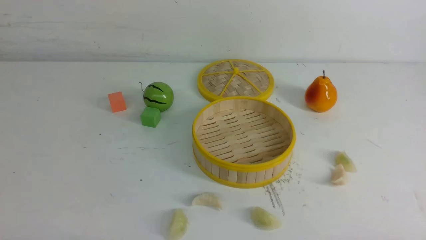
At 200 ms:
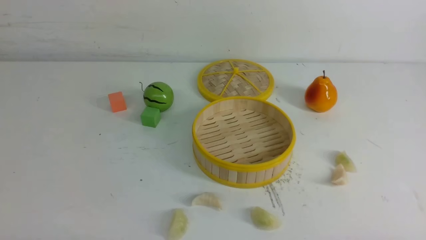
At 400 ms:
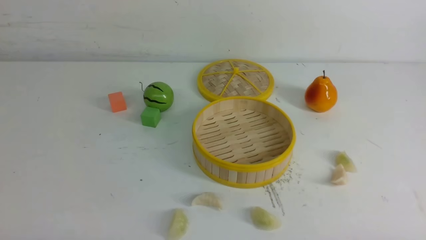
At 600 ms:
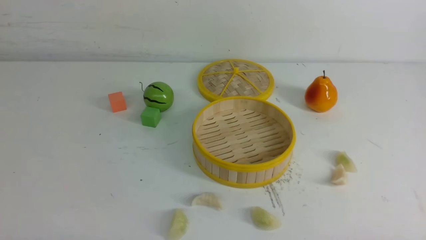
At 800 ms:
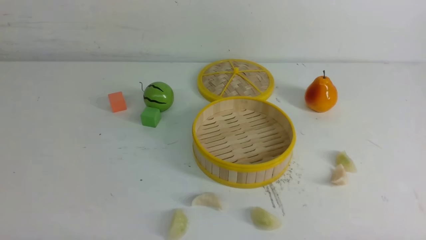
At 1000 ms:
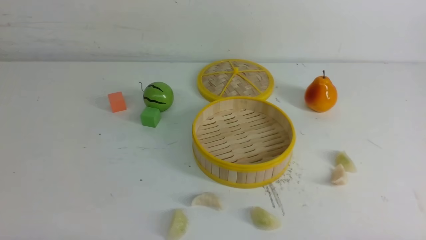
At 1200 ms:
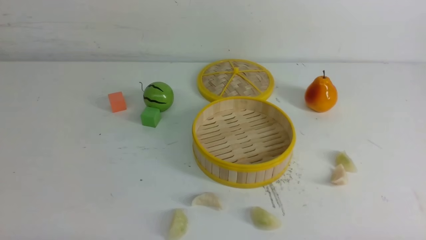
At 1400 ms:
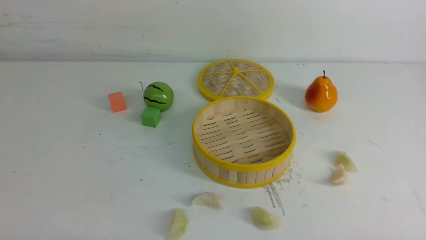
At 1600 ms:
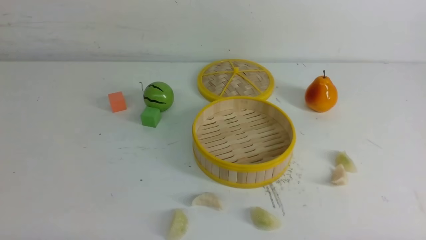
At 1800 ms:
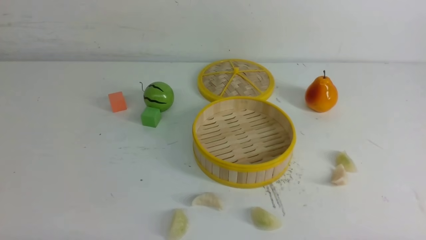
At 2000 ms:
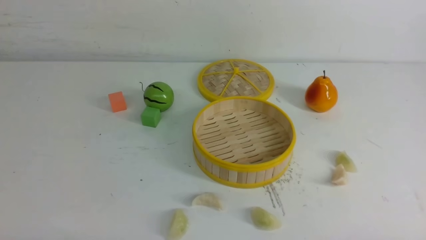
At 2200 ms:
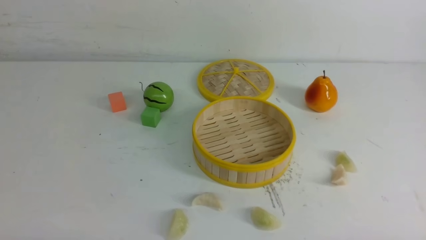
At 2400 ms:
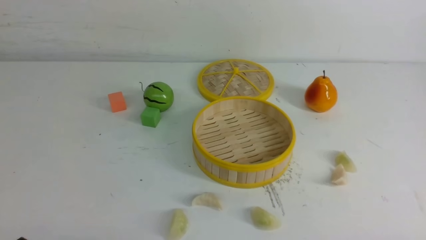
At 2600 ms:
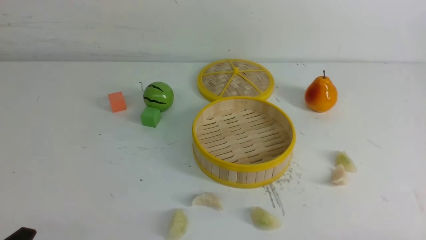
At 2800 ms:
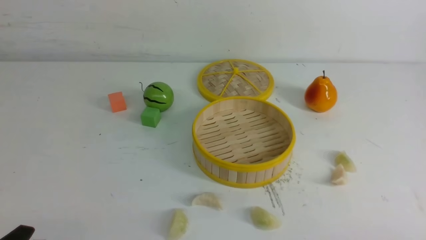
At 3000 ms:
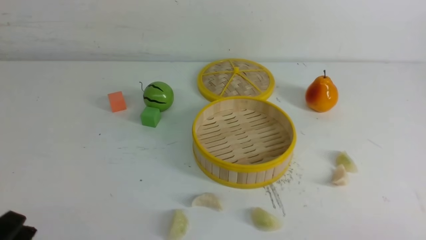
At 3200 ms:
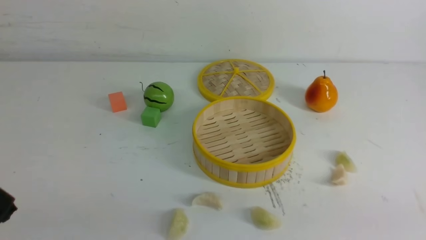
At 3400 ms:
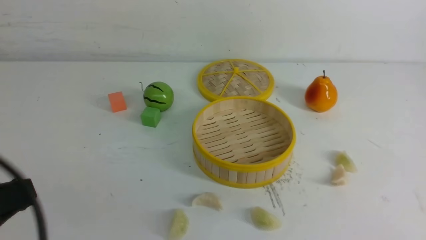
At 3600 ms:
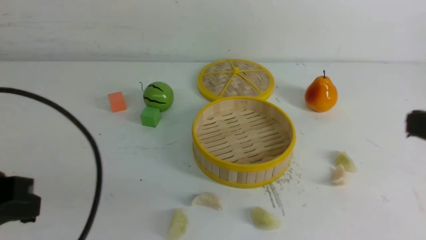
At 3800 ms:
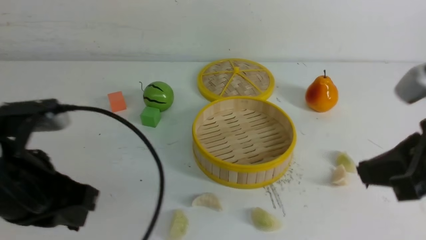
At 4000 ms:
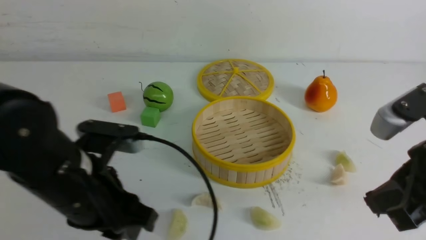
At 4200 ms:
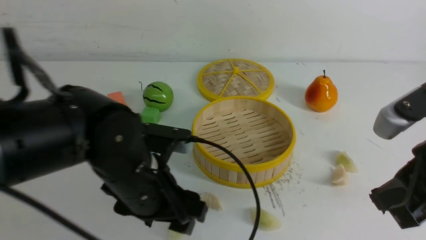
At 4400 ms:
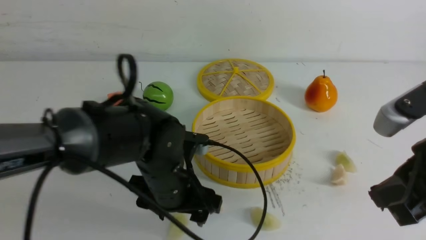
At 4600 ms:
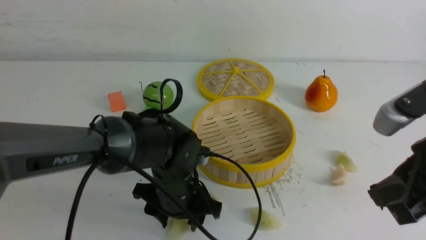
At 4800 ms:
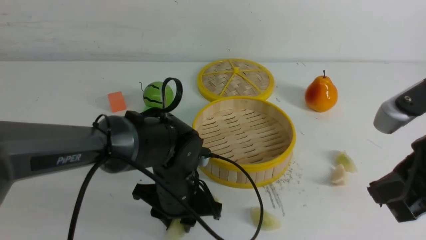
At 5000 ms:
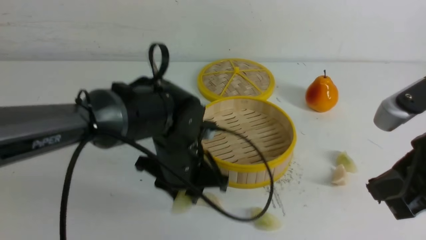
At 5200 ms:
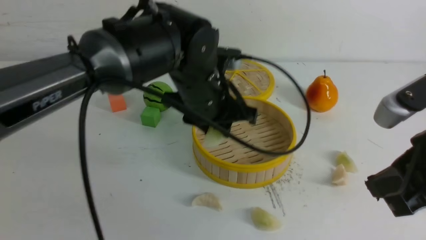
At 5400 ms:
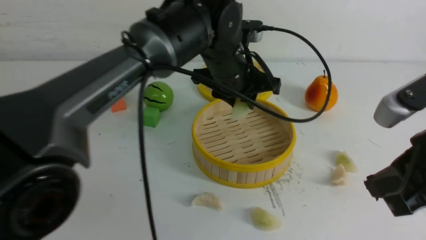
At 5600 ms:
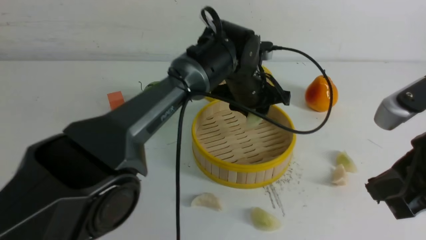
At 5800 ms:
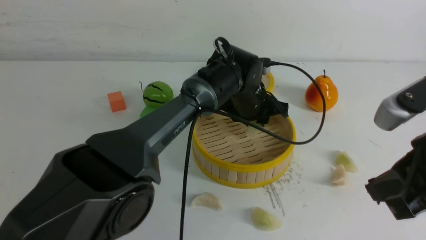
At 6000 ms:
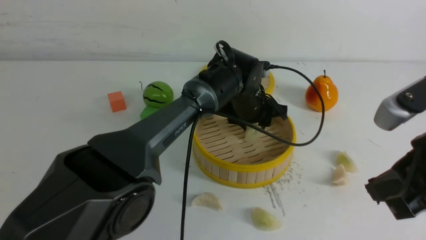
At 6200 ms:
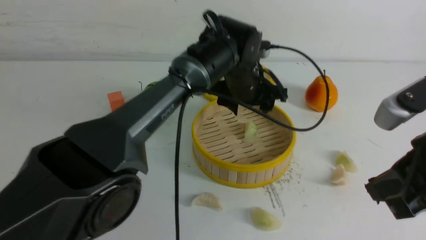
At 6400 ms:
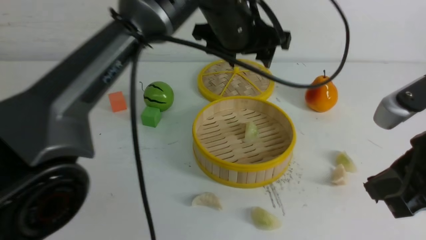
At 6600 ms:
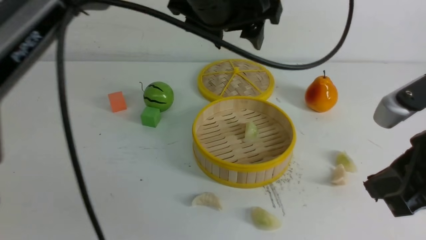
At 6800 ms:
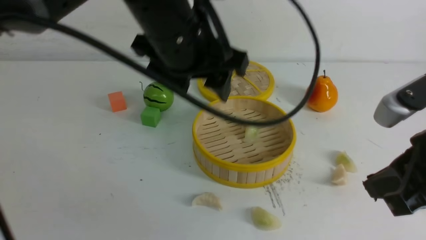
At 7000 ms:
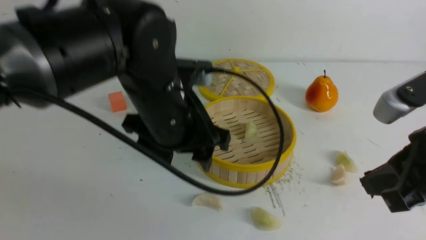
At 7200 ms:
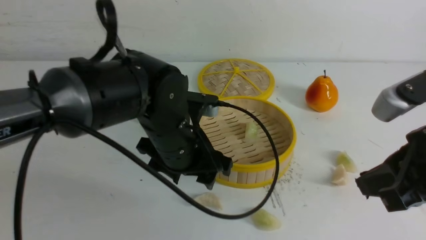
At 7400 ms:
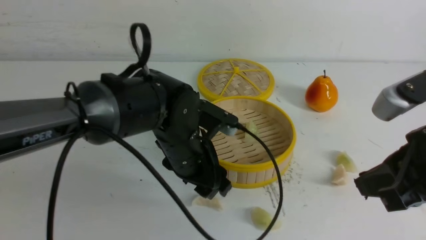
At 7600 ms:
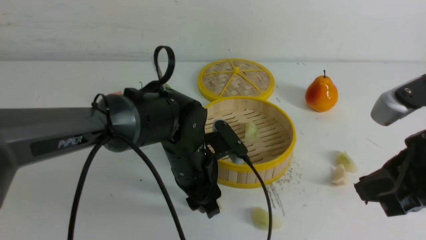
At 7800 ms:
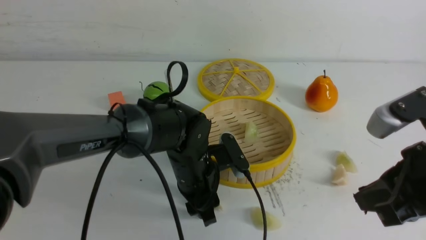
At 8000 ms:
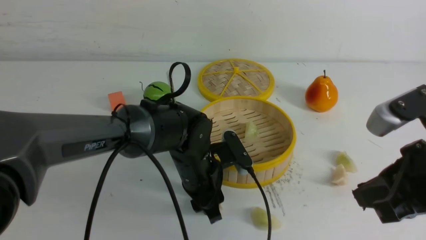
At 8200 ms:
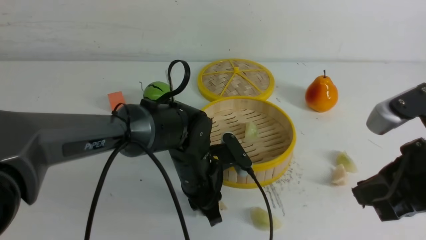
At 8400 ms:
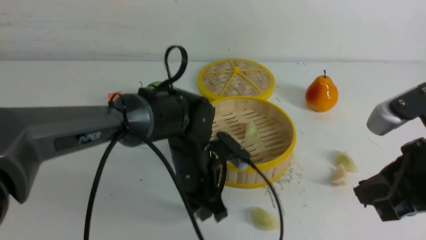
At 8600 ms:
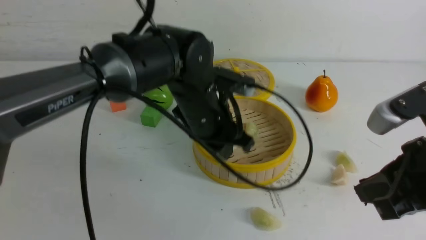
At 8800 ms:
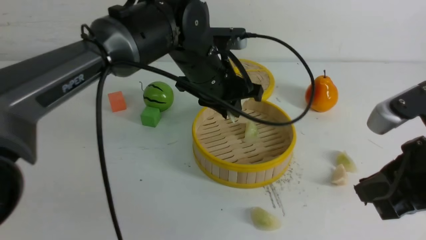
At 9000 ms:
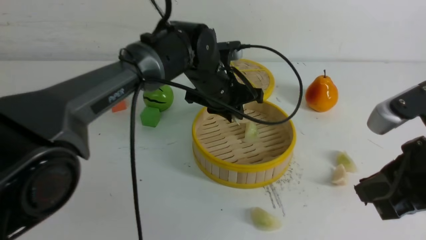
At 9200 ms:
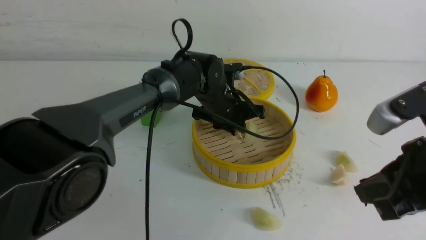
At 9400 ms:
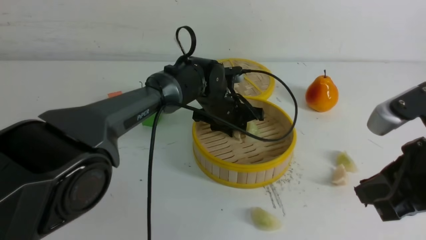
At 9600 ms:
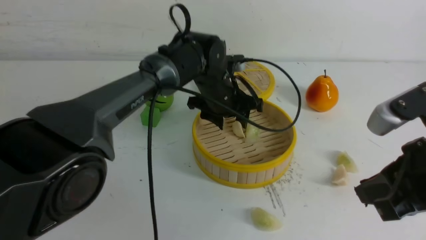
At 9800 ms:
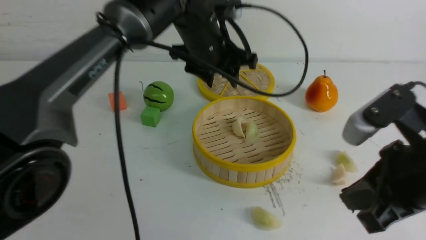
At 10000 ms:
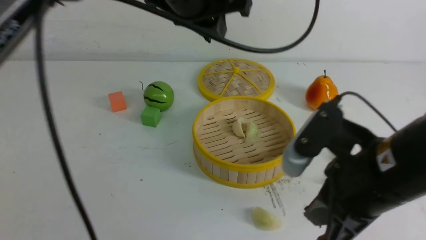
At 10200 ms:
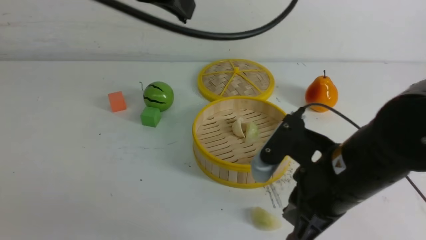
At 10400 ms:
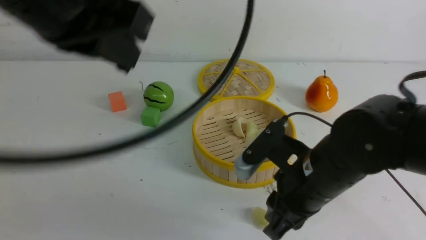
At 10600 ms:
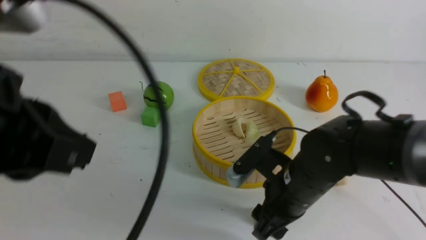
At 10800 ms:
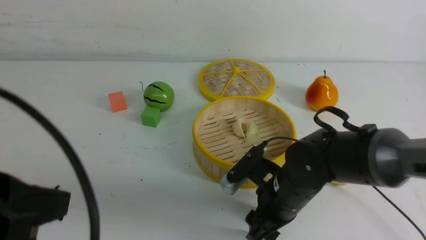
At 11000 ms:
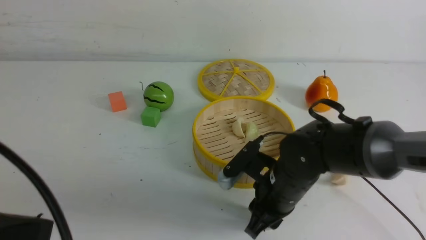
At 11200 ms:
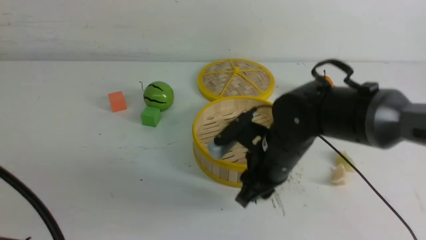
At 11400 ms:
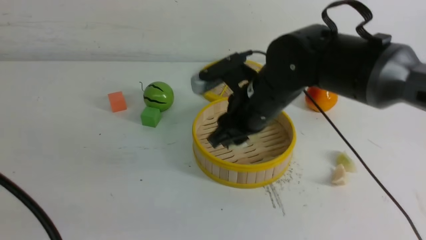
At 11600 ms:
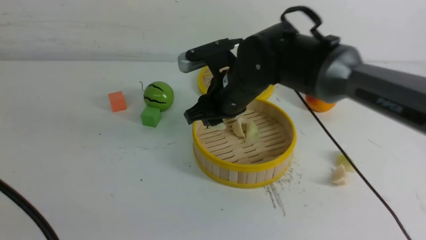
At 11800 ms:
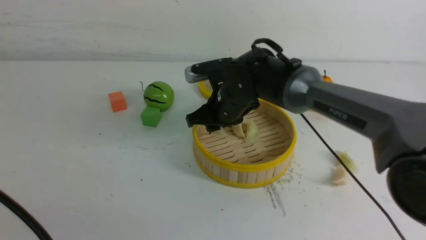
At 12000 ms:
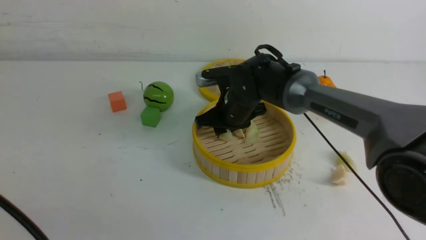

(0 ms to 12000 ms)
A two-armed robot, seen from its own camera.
Task of the whole recording: put the dumplings into the steamer on the white table.
Step, 0 ms - 4800 ms: use the left arm to grab a dumpling.
Step, 5000 ms - 6200 ms: use the left arm to put the dumpling into the steamer.
Step, 6400 ms - 8200 ms: use the left arm to grab a dumpling.
Step, 8400 ms - 9400 ms: use the left arm to put the dumpling into the steamer.
Step, 9800 ms - 11000 ms: use the right arm to grab a dumpling.
1600 ms - 3000 ms: The left gripper shifts approximately 5 cm upward.
3000 ms - 4400 ms: The right gripper heads forward, upward and to the left, covering approximately 20 cm, and closes up. Meanwhile the left gripper travels forward and to the right by approximately 30 cm, and opens its fingers.
4400 ms - 6000 ms: The left gripper is displaced forward and to the right by some 20 cm.
6000 ms - 7600 ms: The left gripper shifts roughly 15 cm backward and to the left, and moves approximately 20 cm upward and comes back.
7600 ms - 9000 ms: The left gripper heads forward and upward, covering roughly 10 cm, and closes.
9000 ms - 10400 ms: The right gripper moves to the left, downward and forward, approximately 15 cm. The left gripper moves backward, upward and to the left, approximately 35 cm, and opens, then closes once more.
10400 ms - 12000 ms: The right gripper goes approximately 20 cm forward. The left gripper travels backward, downward and to the left by about 20 cm.

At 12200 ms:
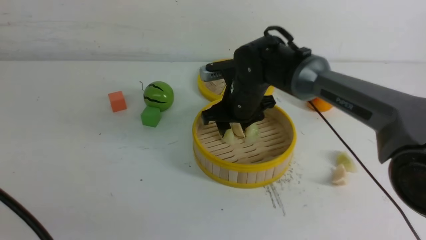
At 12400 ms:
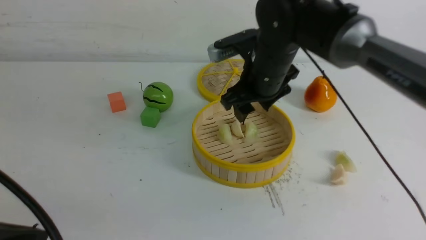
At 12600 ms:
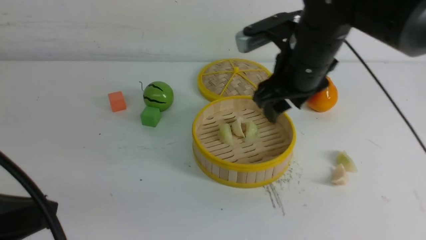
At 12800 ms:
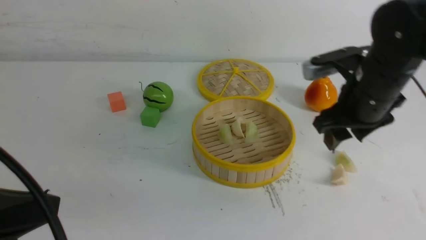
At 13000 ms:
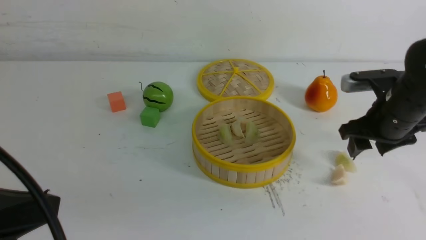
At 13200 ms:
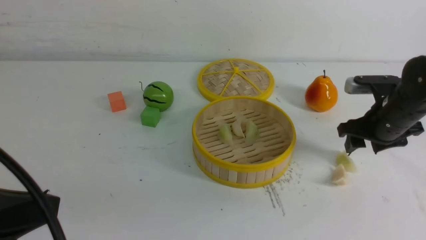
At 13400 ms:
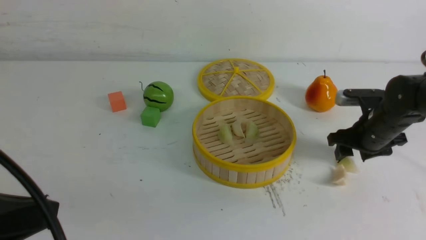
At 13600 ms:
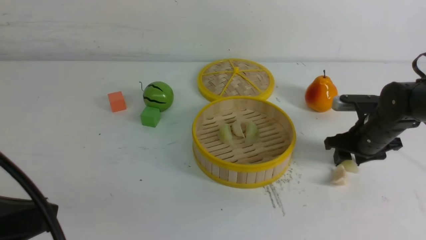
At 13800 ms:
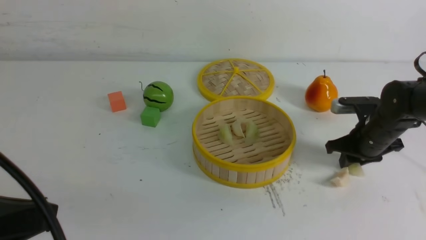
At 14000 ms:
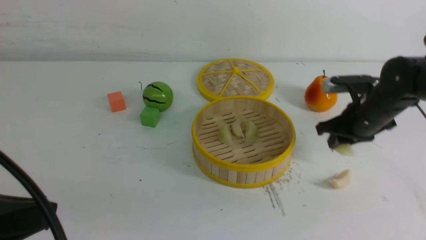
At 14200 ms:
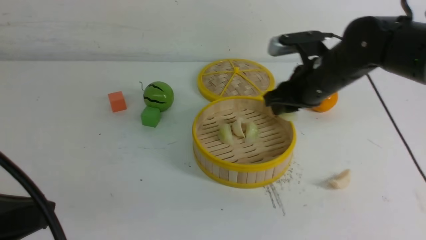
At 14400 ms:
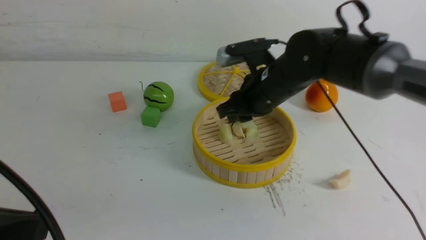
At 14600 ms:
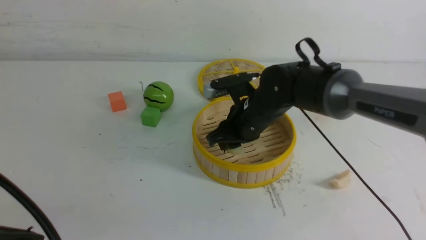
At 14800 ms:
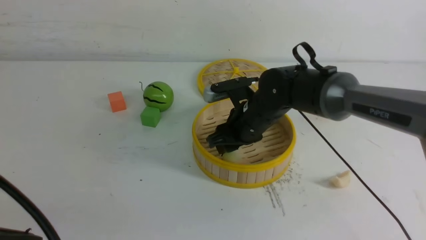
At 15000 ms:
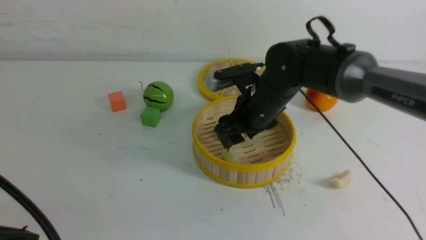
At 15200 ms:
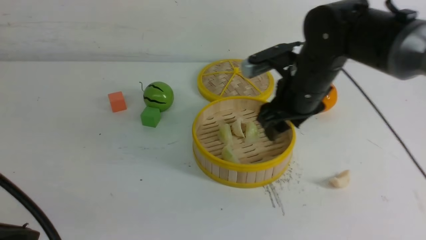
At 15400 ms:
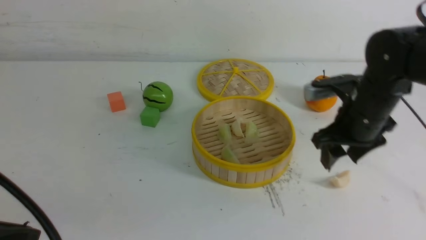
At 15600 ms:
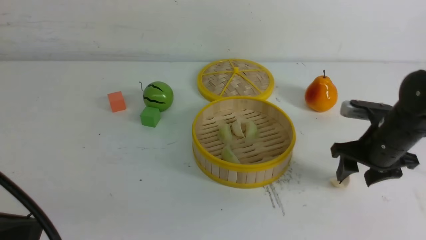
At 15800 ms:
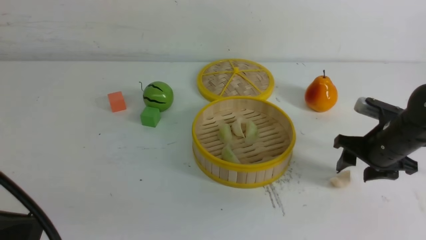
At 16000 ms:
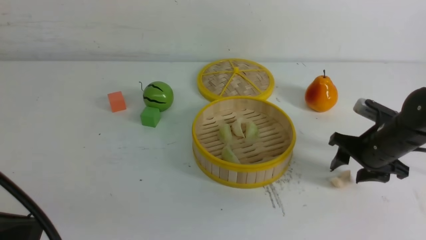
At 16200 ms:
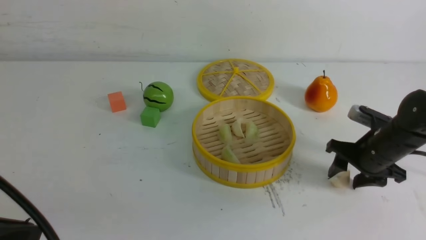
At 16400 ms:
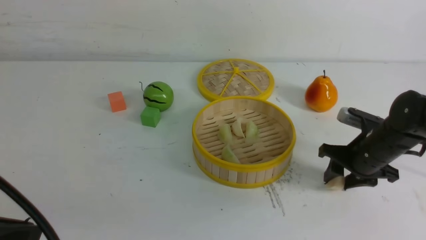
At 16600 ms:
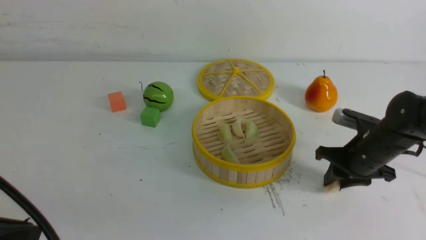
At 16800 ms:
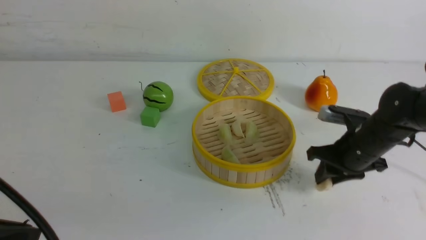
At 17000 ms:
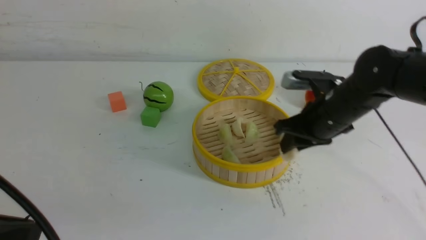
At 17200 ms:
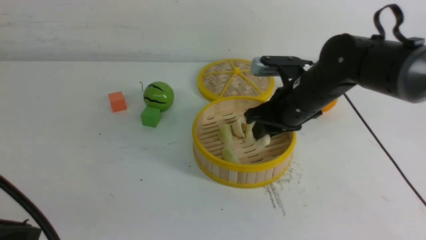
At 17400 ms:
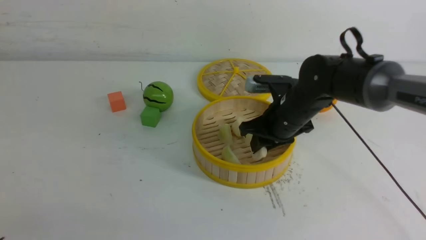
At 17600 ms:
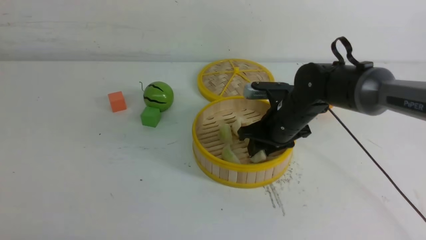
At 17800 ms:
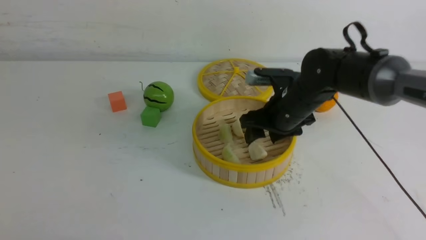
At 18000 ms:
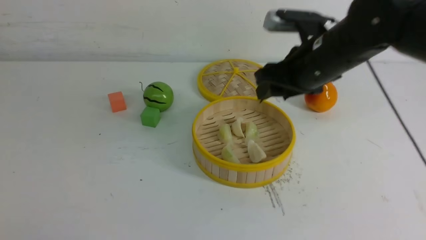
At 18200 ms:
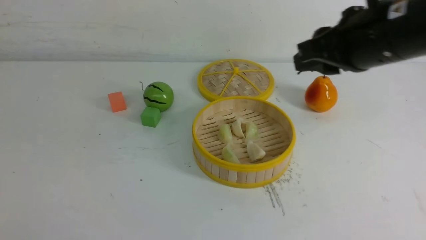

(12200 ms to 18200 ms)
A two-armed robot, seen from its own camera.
Task of the whole recording: put the dumplings into the steamer on the white table.
Step, 12400 ms - 13800 ms: use the right arm to grab a dumpling.
Step, 14000 ms - 15000 ms: use the right arm to put the dumpling into the steamer.
Step, 15200 ms - 16800 ms: use the right arm to grab a dumpling.
Step, 17000 ms - 17800 ms: use the right arm to put the dumpling into the steamer.
12200 ms - 13800 ms: The right gripper heads to the right, covering about 20 cm.
13800 ms - 15200 ms: The right gripper heads to the left and upward, covering some 15 cm, and opens up.
15200 ms - 16600 ms: The right gripper travels to the right and downward by approximately 15 cm, and closes up.
16600 ms - 18200 ms: The left gripper heads backward and downward, covering some 10 cm, while the right gripper is displaced upward by roughly 25 cm.
